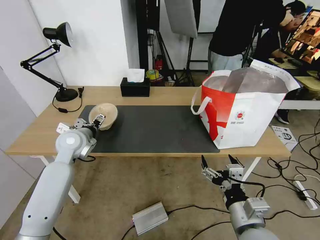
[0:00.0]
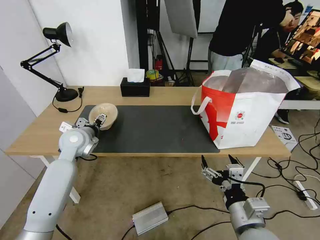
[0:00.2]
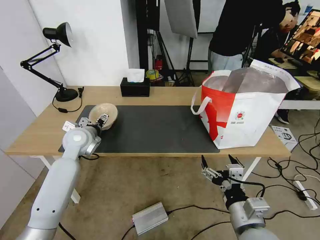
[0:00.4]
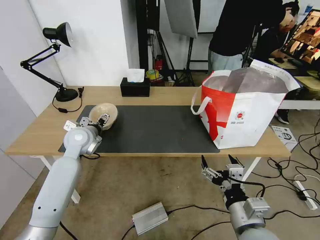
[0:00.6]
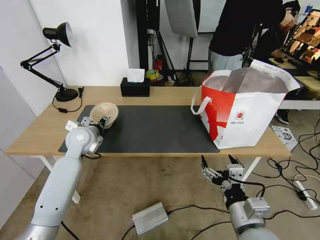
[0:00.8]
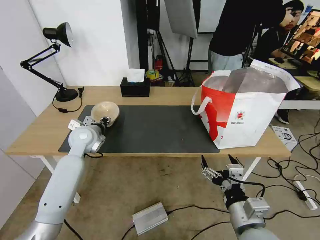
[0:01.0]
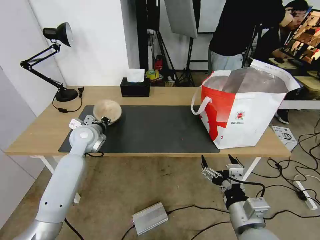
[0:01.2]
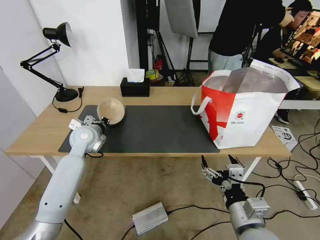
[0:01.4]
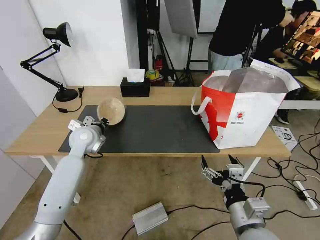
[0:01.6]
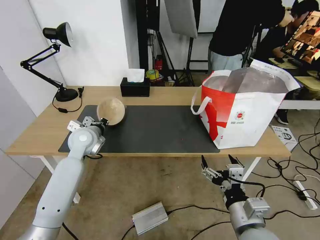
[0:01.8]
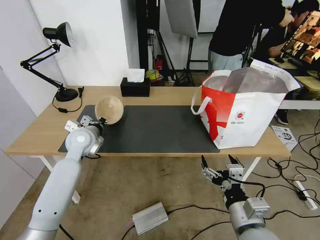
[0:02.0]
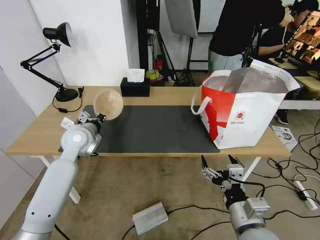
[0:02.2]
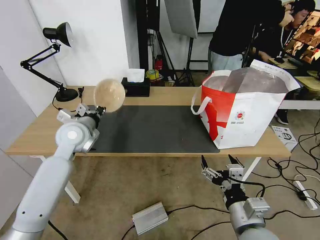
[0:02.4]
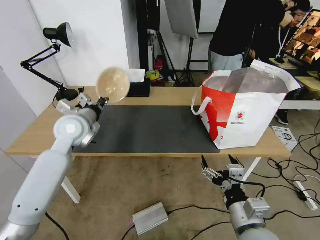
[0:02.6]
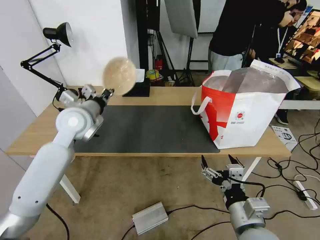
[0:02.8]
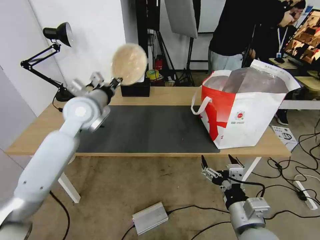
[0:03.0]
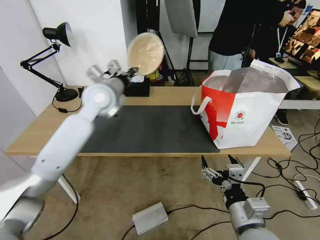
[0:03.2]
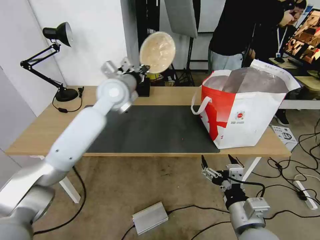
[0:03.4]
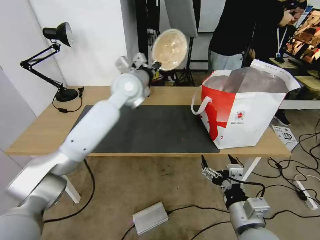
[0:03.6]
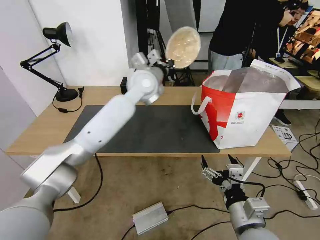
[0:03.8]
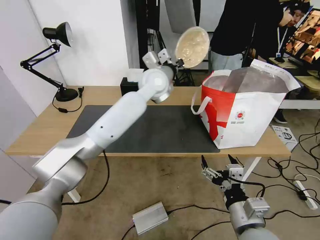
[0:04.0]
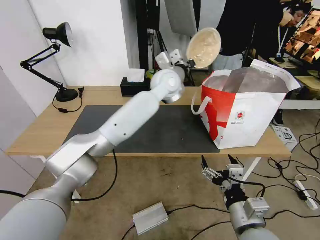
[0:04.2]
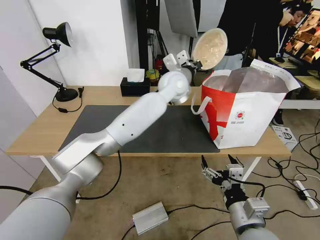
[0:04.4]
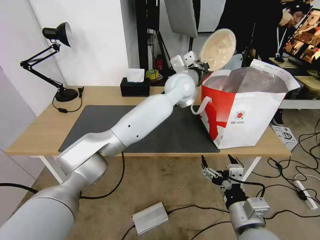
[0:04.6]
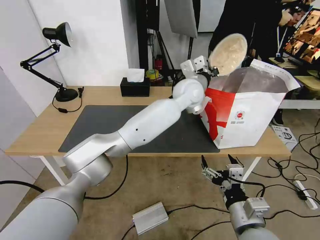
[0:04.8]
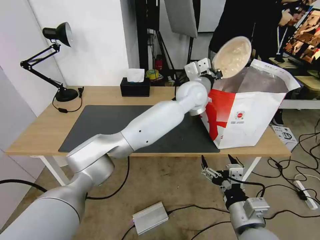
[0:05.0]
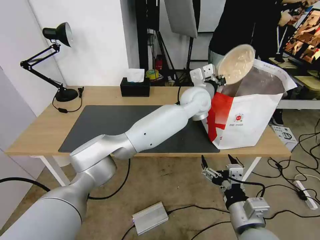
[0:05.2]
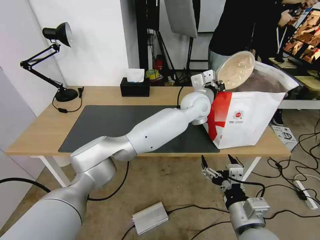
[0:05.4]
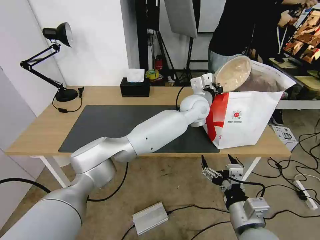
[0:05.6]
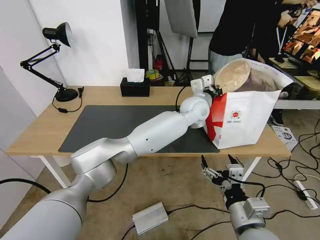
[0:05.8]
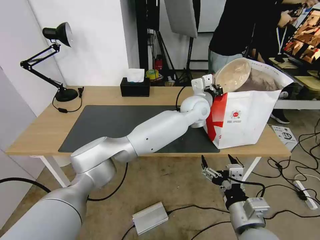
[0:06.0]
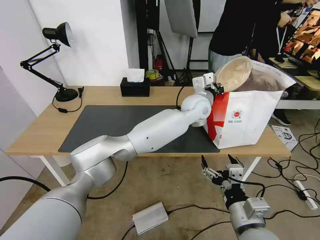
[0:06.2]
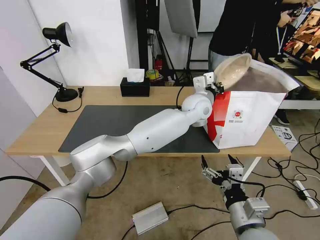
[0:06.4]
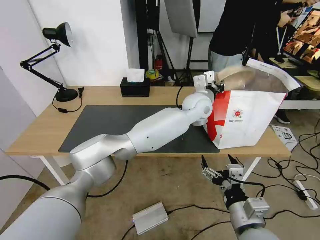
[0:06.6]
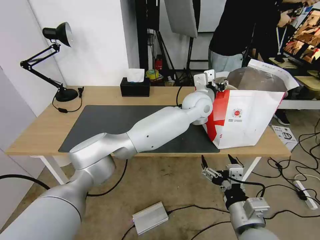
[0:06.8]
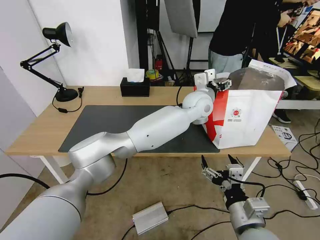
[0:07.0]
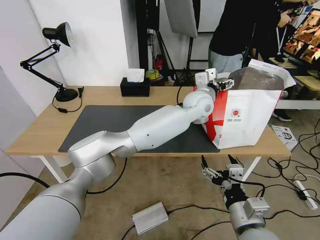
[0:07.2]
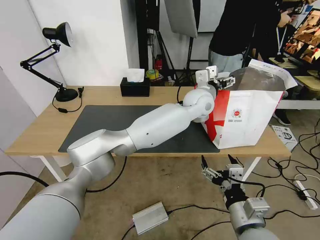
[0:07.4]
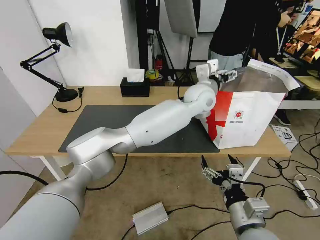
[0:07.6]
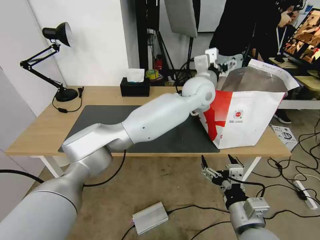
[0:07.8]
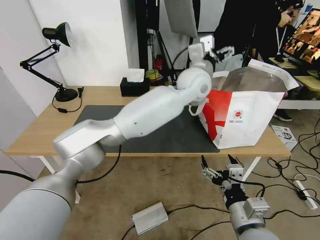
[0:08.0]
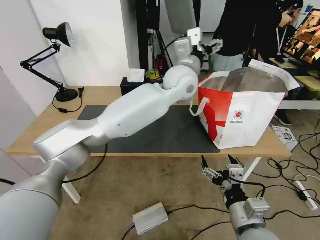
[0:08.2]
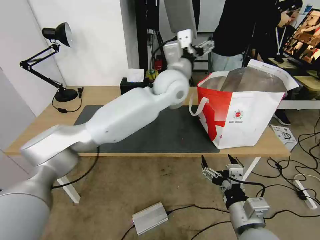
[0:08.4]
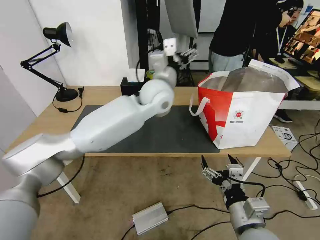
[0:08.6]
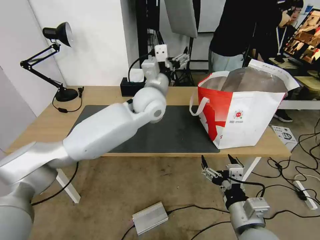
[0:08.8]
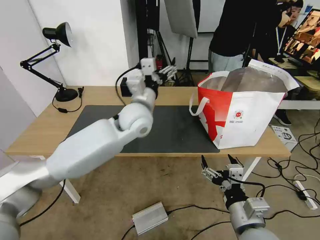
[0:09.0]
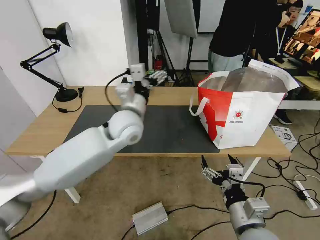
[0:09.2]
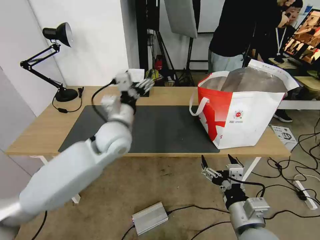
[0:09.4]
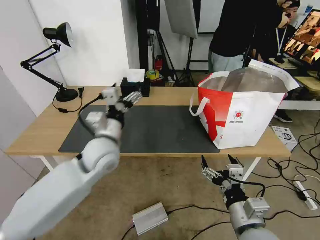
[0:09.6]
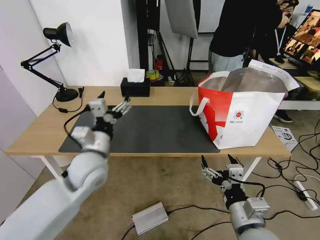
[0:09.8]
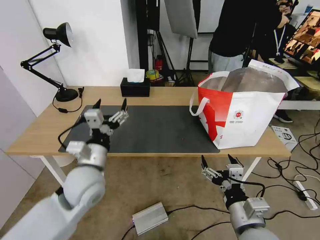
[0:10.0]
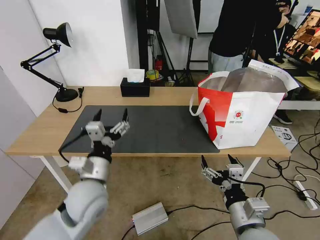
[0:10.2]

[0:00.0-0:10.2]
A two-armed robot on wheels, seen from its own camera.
Task of the whole recording: Pick up the trash from the table and place it into the takeout bag.
0:00.0 to 0:01.4: The left gripper closes its fingers.
0:01.4 to 0:03.0: The left gripper goes approximately 15 cm upward.
0:03.0 to 0:04.4: The left gripper moves to the right, roughly 25 cm.
0:04.4 to 0:05.8: The left gripper goes approximately 10 cm downward and to the right.
0:05.8 to 0:07.2: The left gripper opens.
0:07.2 to 0:08.8: The left gripper shifts some 15 cm to the left.
0:08.8 to 0:10.2: The left gripper is displaced backward, to the left and downward by approximately 30 cm.

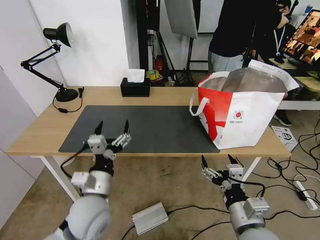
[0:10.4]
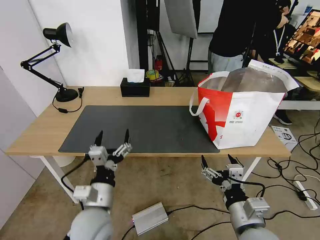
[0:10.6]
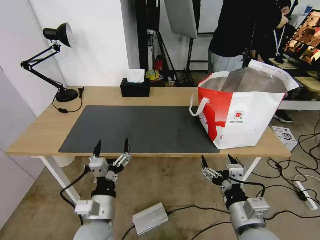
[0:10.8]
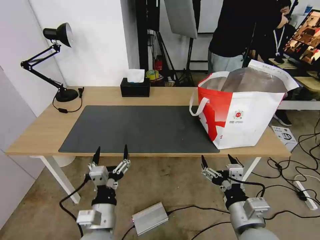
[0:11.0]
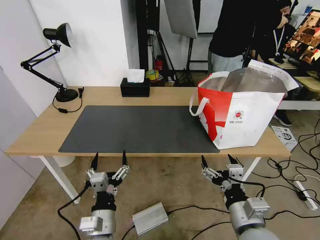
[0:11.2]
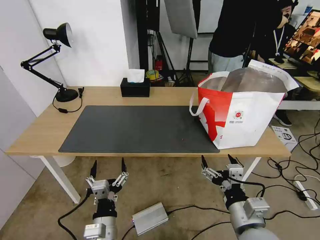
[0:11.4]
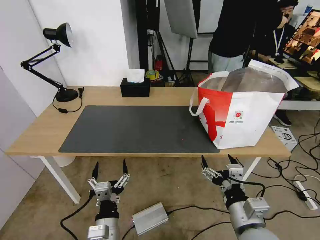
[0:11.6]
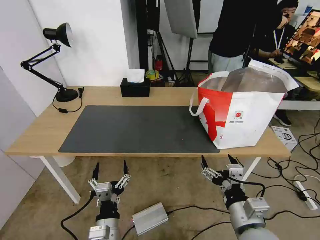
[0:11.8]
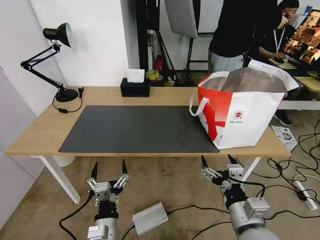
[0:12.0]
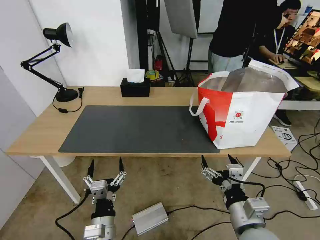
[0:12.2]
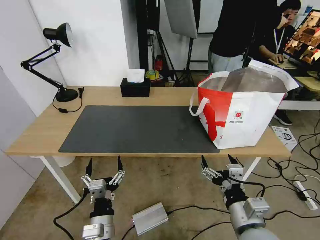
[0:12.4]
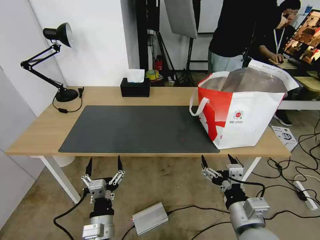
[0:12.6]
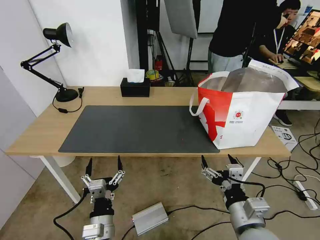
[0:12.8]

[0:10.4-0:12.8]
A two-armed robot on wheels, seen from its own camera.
Task of the whole recording: Pick up the trash from the table and place it into the takeout bag.
0:10.4 to 0:11.6: The left gripper shifts roughly 15 cm downward and backward.
0:11.6 to 0:12.8: The grippers stay close to where they were, moving slightly.
